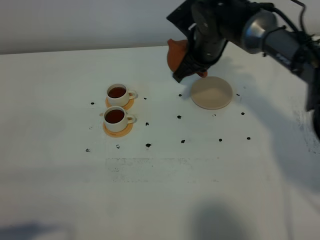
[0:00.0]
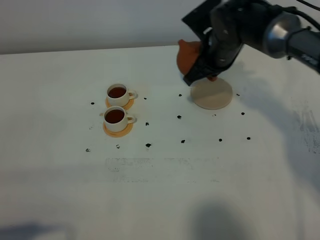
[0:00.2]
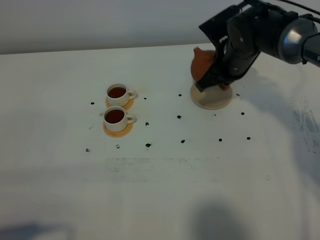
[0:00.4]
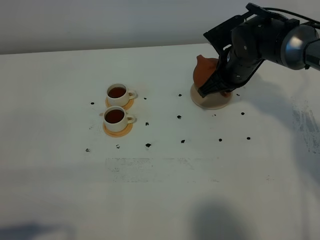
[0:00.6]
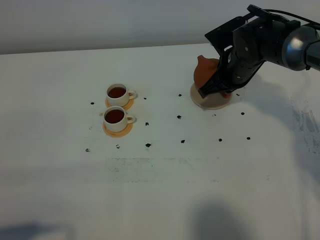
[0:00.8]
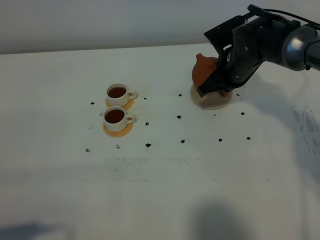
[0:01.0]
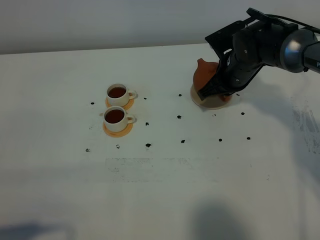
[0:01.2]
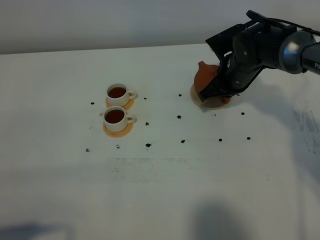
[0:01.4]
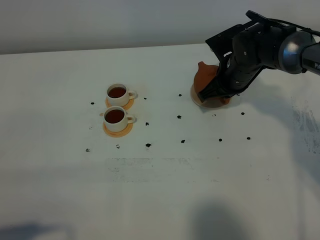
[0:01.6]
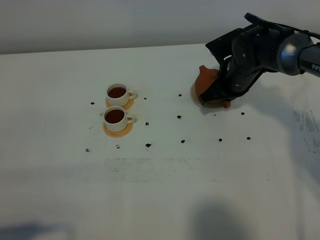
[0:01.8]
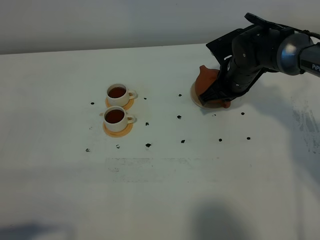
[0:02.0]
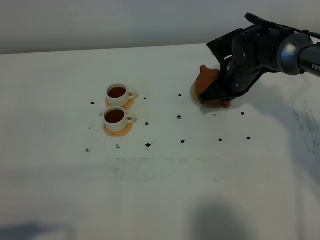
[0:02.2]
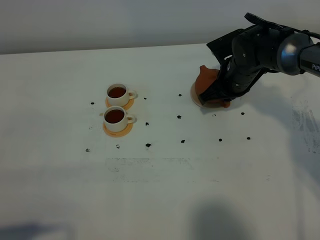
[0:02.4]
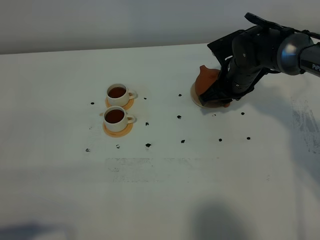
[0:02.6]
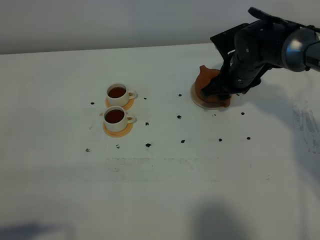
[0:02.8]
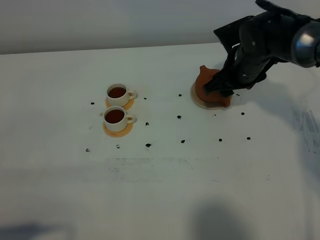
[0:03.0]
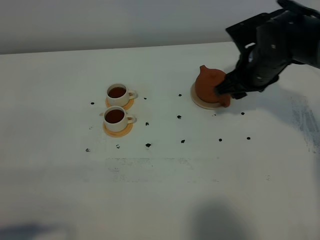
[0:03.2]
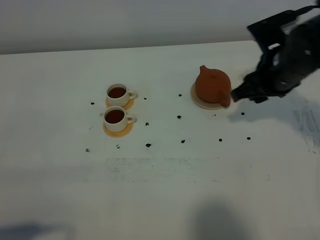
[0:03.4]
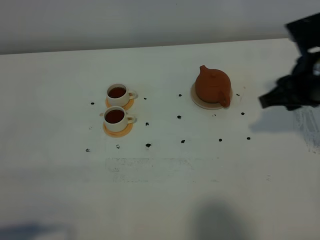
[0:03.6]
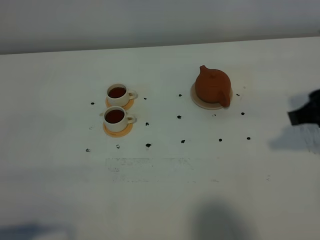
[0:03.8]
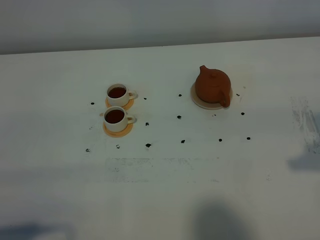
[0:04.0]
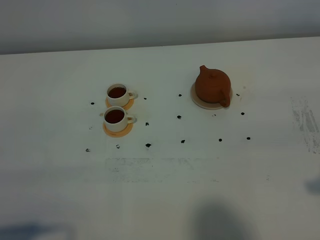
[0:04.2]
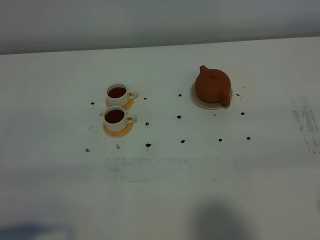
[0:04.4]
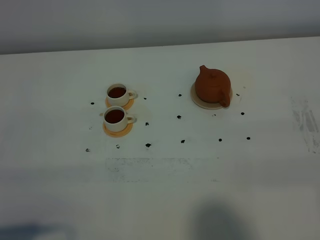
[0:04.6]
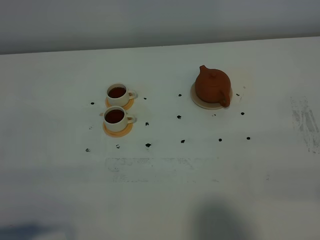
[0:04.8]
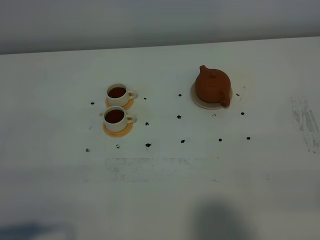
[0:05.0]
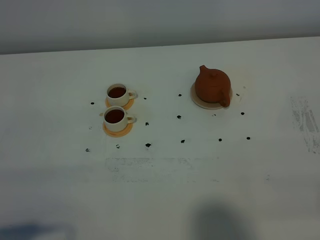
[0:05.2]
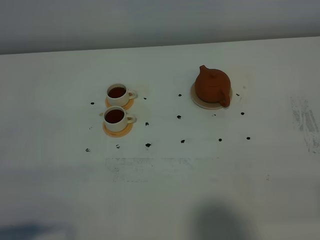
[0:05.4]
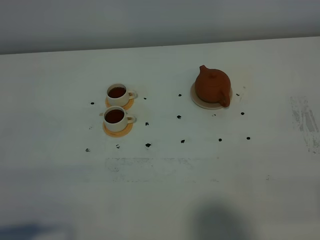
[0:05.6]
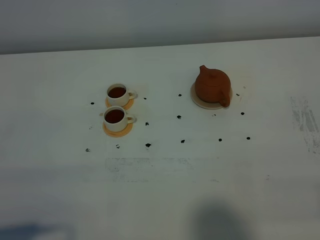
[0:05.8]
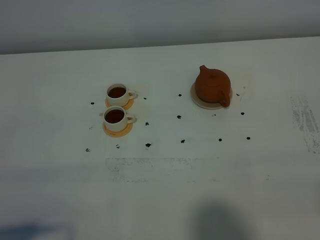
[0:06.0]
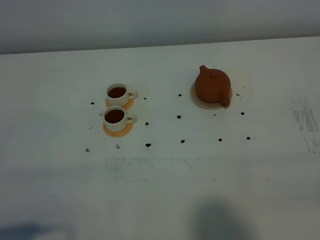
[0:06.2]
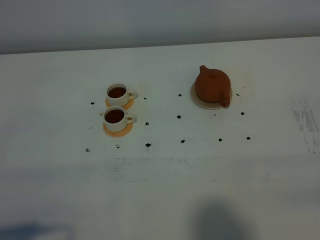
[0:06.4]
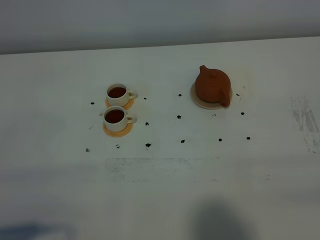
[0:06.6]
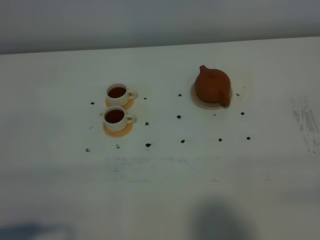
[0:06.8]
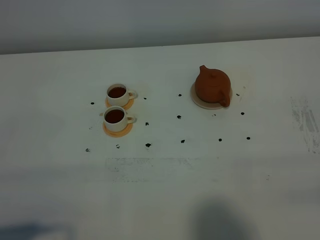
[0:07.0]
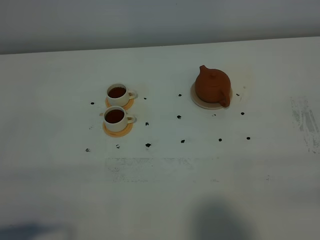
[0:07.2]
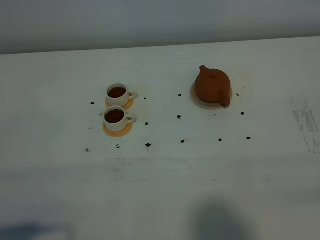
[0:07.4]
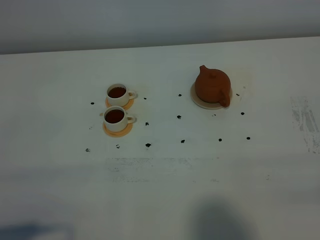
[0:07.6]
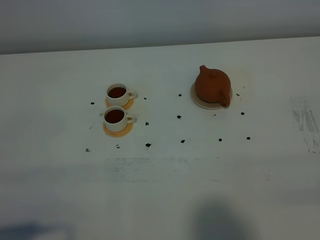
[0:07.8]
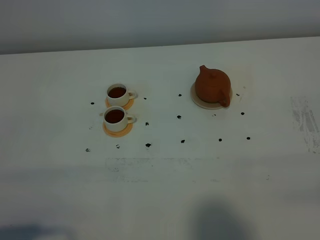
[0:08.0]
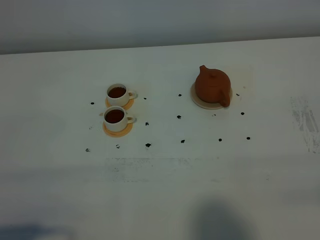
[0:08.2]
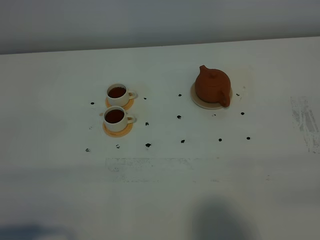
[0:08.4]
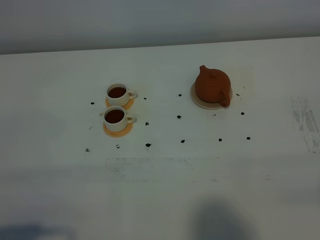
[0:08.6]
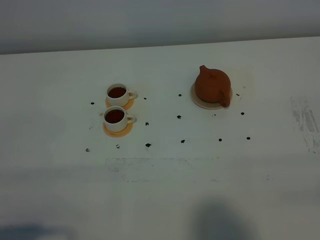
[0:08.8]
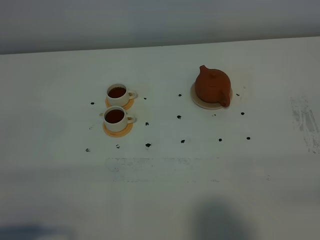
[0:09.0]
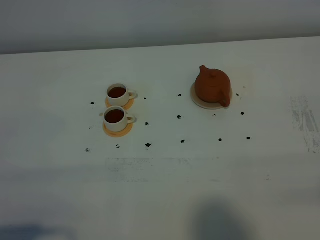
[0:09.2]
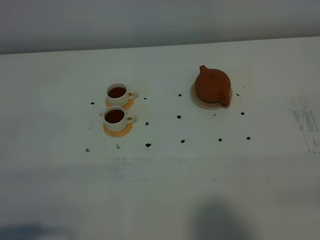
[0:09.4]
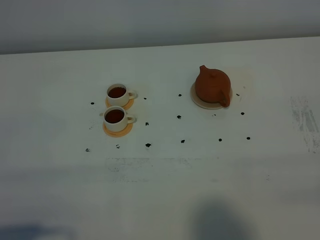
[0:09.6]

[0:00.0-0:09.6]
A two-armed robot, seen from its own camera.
Task of the whole recording: grasp the brown teapot and pour the tea into the two white teacups one by one, put the brown teapot back in its original place.
0:00.0 to 0:01.6: The right gripper travels to the right and downward by roughly 10 cm.
0:01.6 to 0:03.2: The right gripper heads upward, covering about 5 cm, and opens.
0:03.2 to 0:04.8: The right gripper heads backward and to the right, covering some 35 cm.
0:06.4 to 0:09.6: Both grippers stay put.
